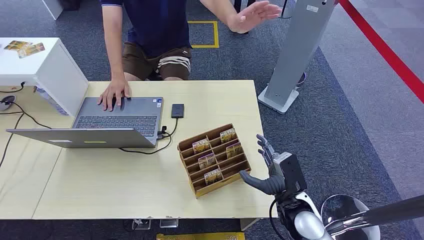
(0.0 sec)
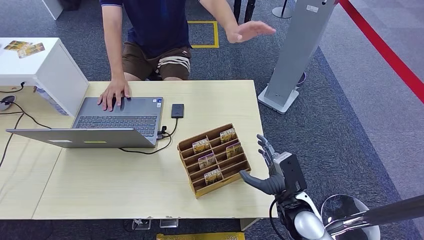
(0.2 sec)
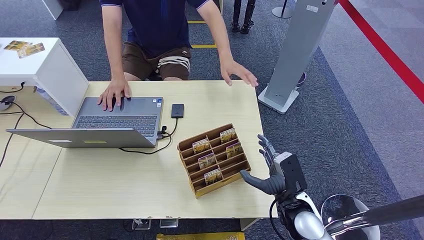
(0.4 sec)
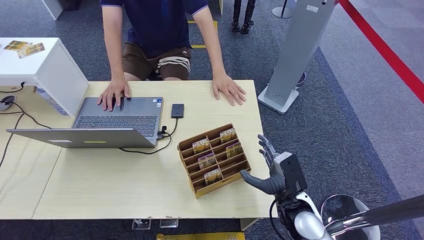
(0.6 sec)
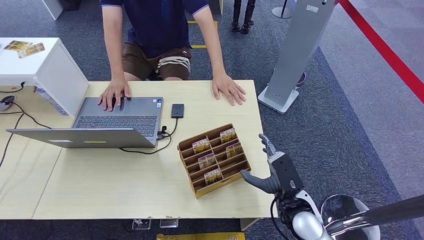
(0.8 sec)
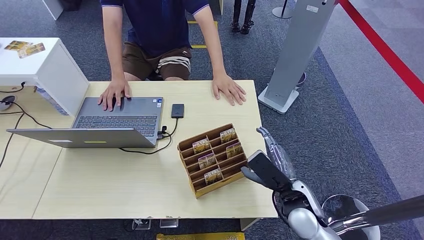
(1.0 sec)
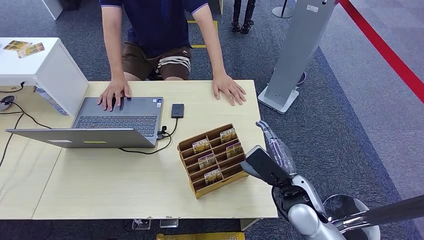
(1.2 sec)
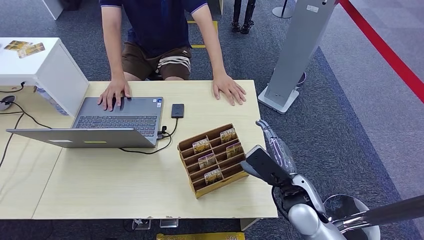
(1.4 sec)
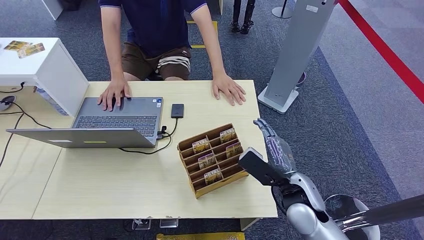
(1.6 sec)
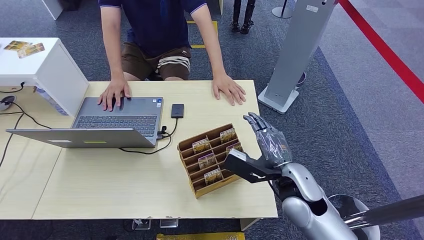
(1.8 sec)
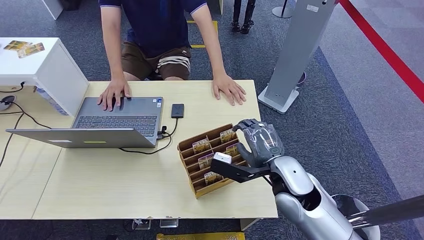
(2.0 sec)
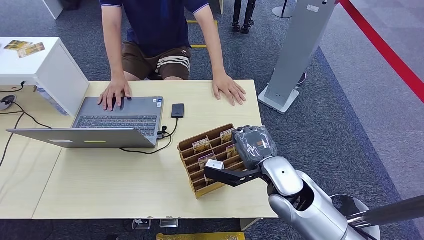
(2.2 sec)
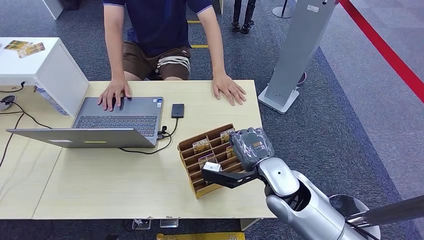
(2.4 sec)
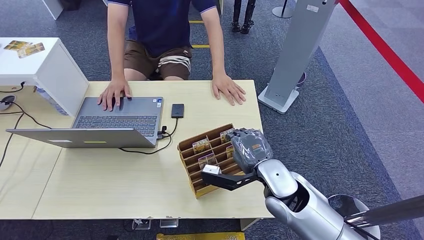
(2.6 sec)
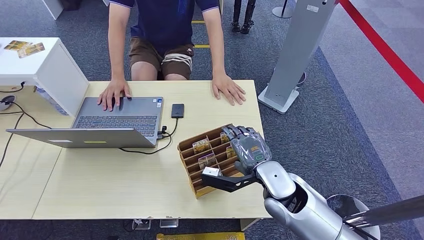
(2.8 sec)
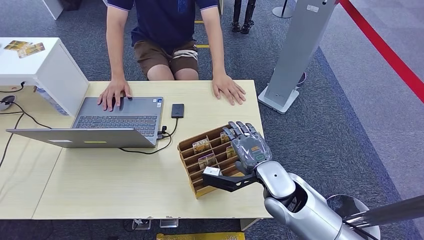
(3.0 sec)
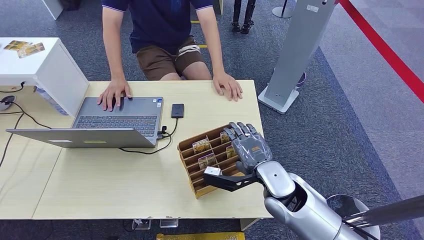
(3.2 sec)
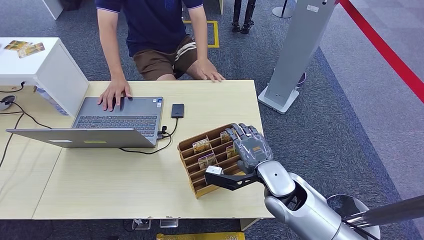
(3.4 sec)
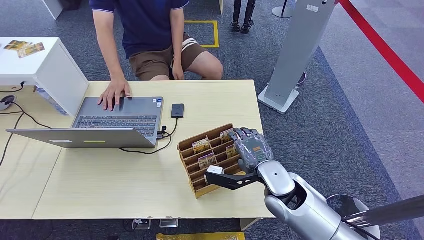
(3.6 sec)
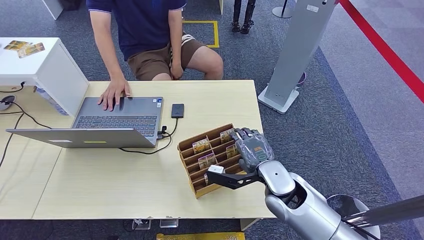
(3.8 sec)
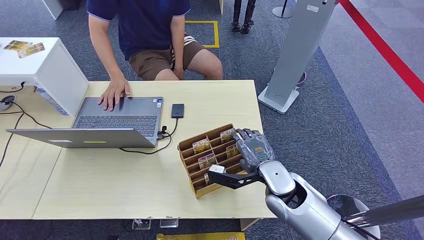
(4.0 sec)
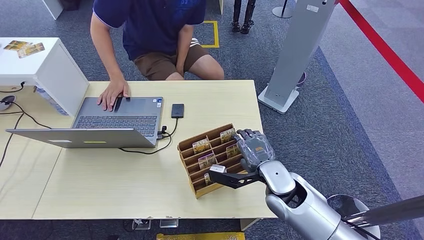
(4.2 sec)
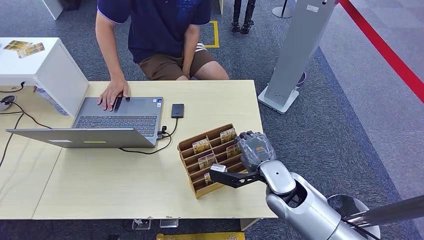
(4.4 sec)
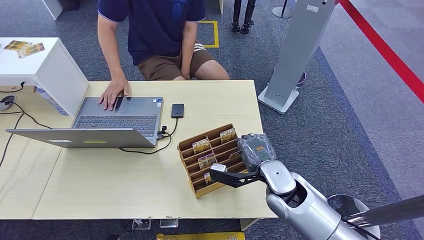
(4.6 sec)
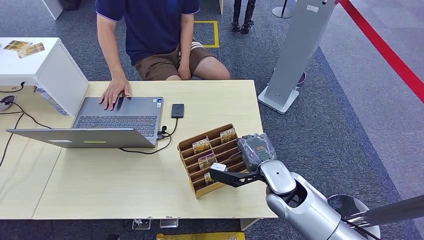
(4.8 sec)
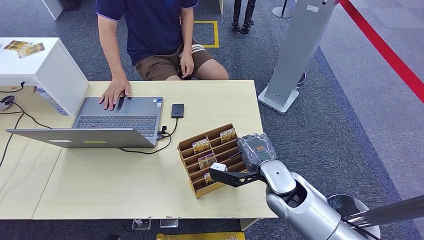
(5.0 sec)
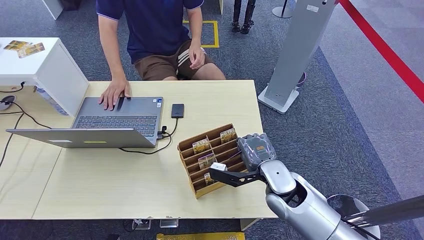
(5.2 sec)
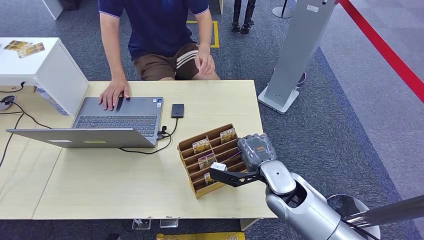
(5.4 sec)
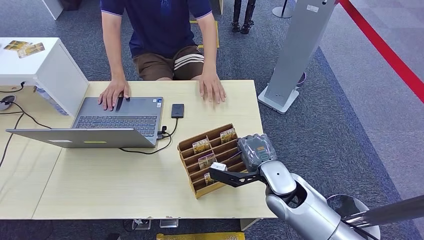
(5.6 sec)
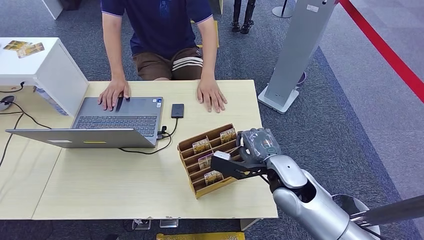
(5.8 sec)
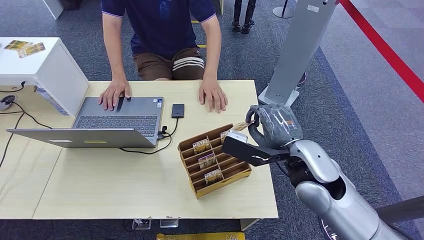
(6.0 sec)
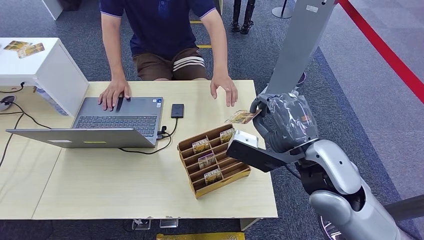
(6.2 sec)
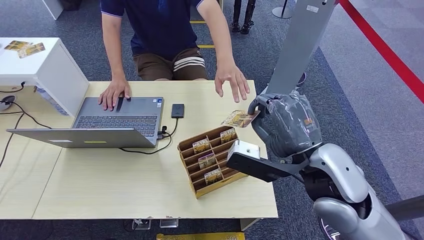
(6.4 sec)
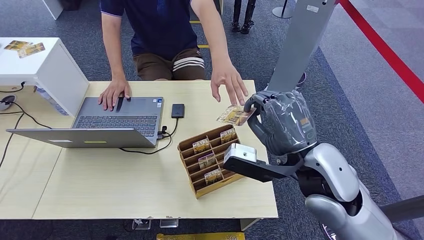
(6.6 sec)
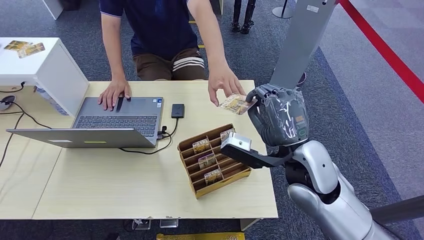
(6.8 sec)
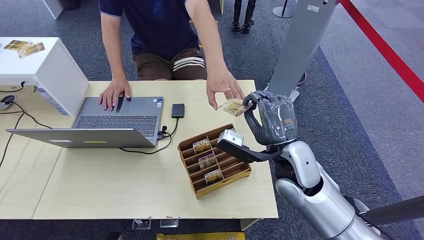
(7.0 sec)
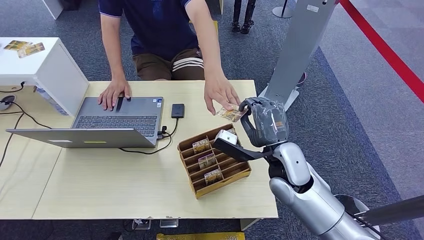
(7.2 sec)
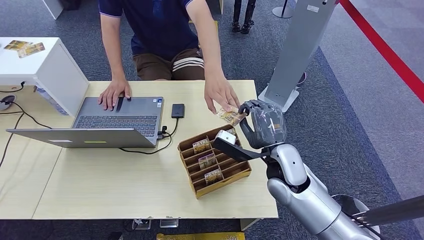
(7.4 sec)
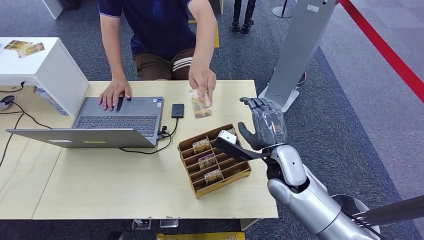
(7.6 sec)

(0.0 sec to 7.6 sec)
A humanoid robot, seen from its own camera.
Step, 0.0 sec - 5.2 sec: Pick up the key card from the card box.
Step, 5.4 sec - 7.6 sec: Hand the key card to the target.
1.6 sec - 3.0 sec: The right hand travels to the left by approximately 5 cm.
3.0 sec - 4.6 sec: The hands move only a little.
4.6 sec - 6.0 sec: The right hand heads upward, covering about 10 cm.
6.0 sec - 7.6 sec: The right hand travels downward by some 5 cm.

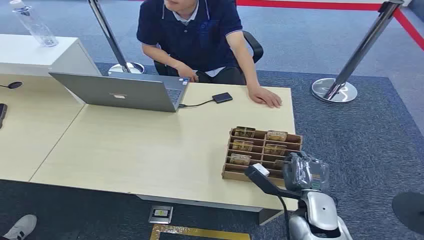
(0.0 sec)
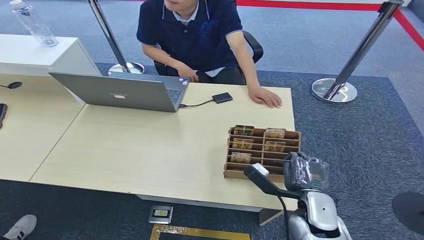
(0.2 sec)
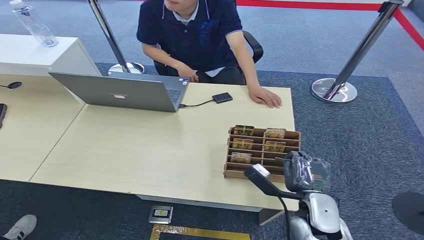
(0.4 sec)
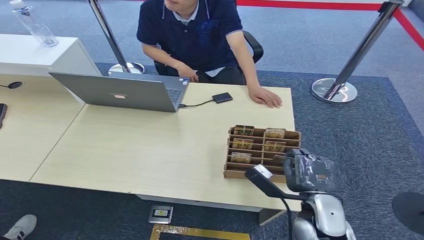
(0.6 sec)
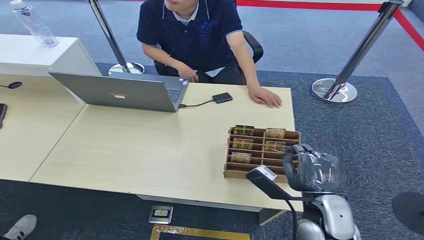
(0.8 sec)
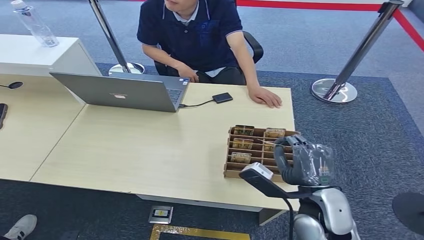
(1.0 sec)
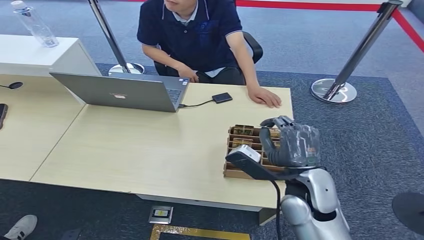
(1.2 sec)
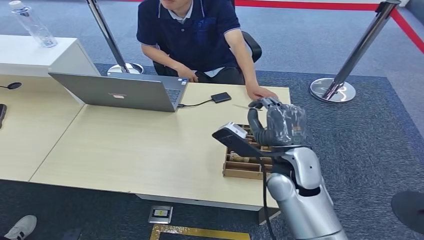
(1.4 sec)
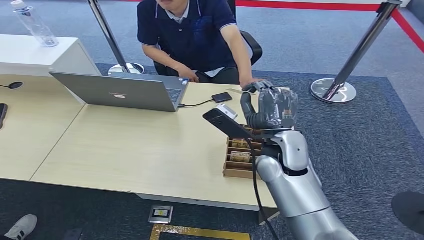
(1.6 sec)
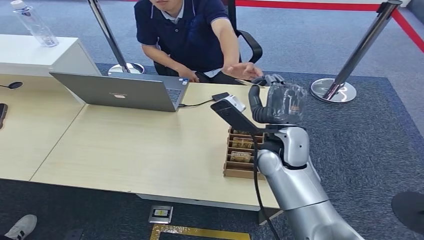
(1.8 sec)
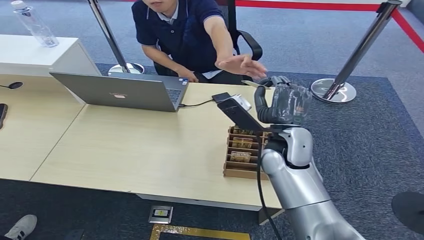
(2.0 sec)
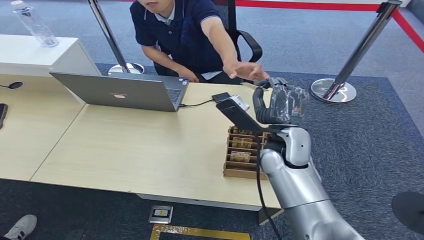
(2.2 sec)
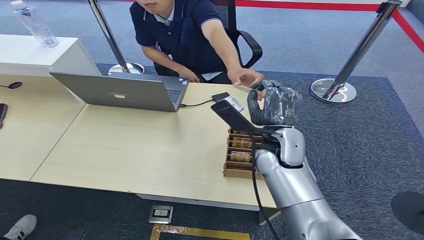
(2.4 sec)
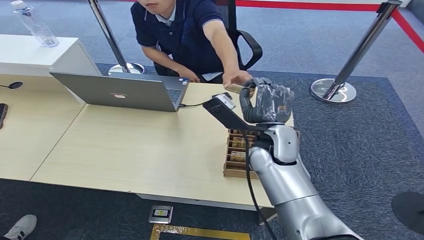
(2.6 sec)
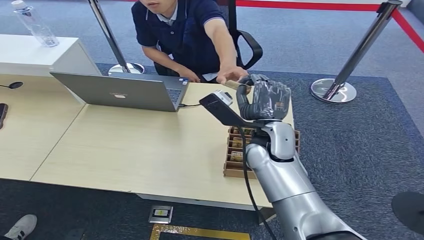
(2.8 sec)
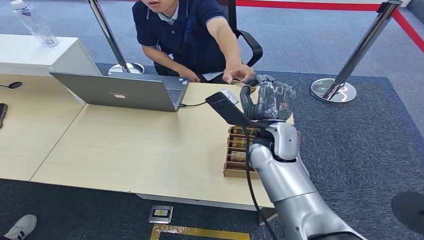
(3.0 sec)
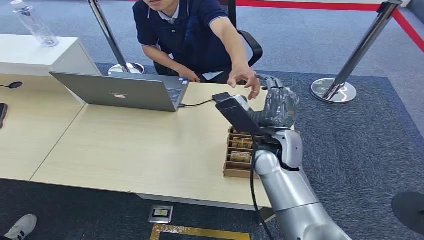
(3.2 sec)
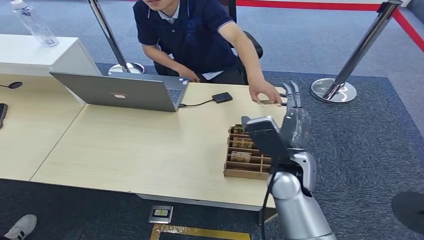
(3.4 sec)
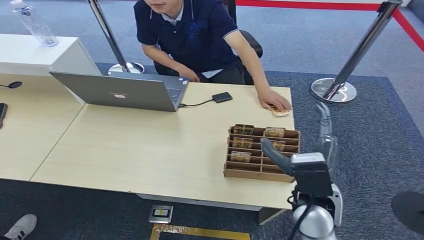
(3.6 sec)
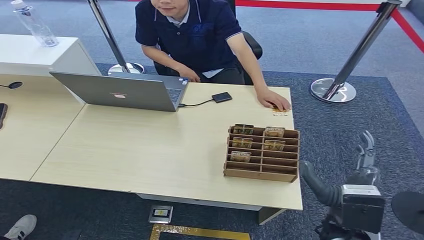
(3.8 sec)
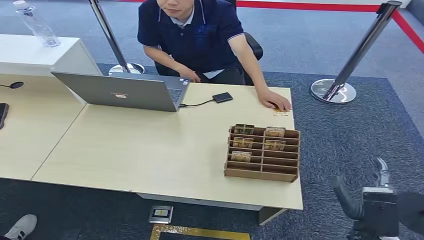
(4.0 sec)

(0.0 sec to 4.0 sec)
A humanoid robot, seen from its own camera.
Step, 0.0 sec - 1.2 sec: Pick up the key card from the card box.
Step, 1.4 sec - 3.8 sec: Hand the key card to the target.
1.4 sec - 2.6 sec: The right hand shifts roughly 5 cm forward.
2.6 sec - 4.0 sec: The right hand moves backward, to the right and downward, some 25 cm.
